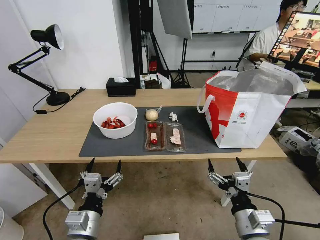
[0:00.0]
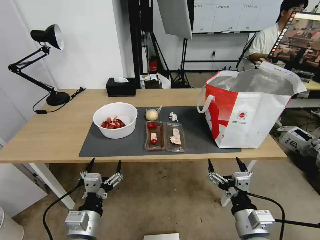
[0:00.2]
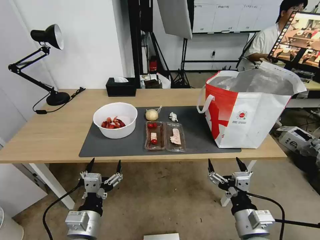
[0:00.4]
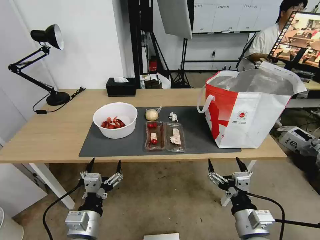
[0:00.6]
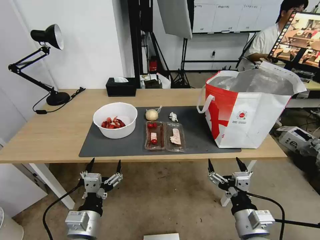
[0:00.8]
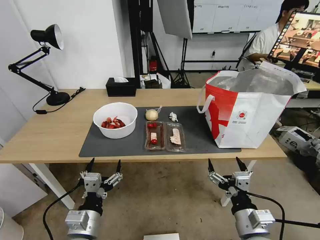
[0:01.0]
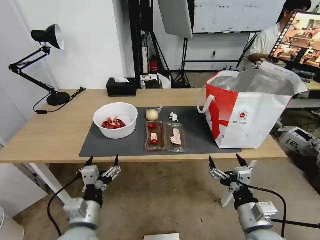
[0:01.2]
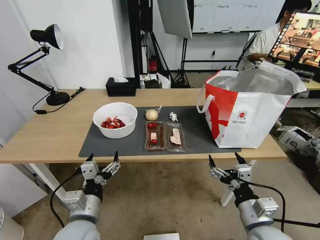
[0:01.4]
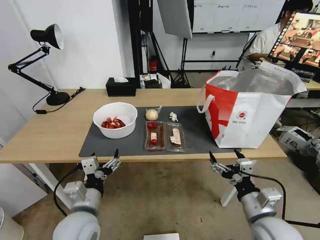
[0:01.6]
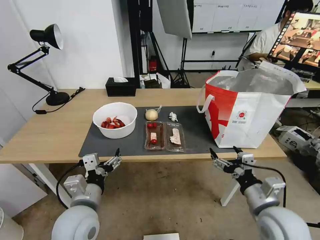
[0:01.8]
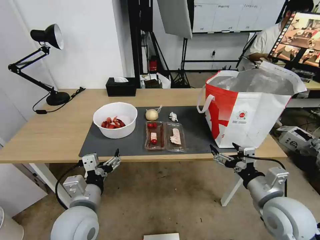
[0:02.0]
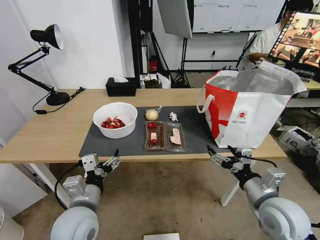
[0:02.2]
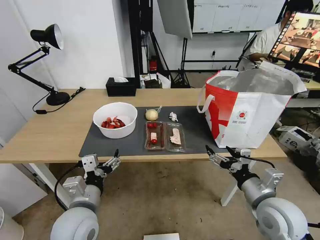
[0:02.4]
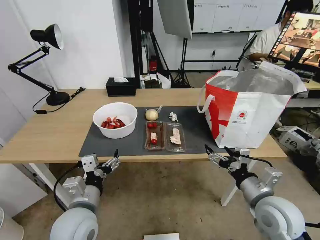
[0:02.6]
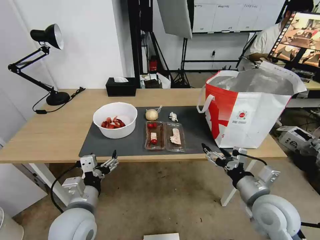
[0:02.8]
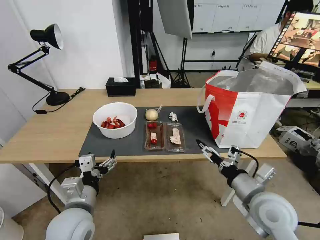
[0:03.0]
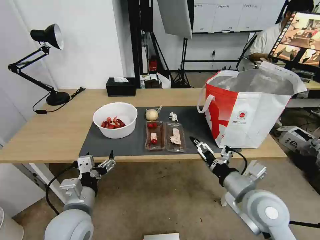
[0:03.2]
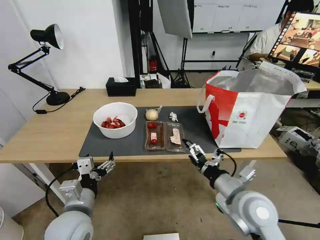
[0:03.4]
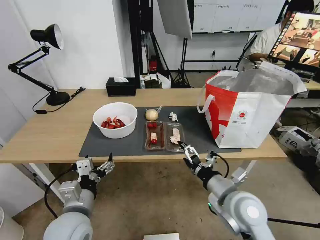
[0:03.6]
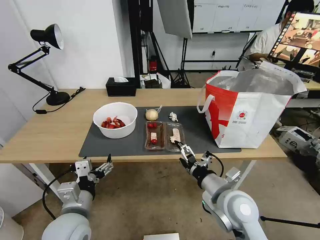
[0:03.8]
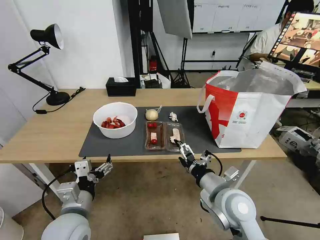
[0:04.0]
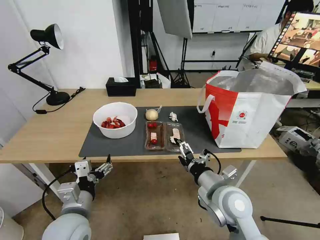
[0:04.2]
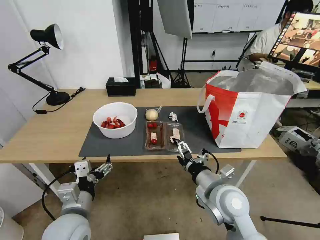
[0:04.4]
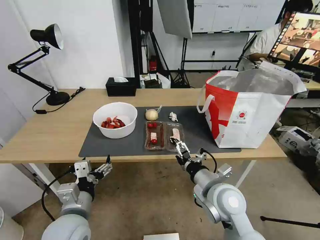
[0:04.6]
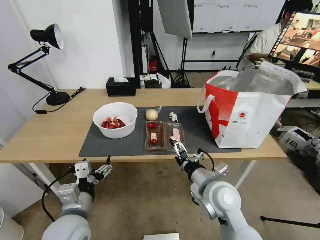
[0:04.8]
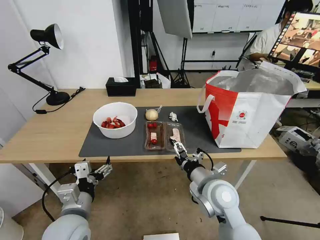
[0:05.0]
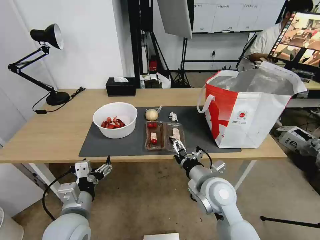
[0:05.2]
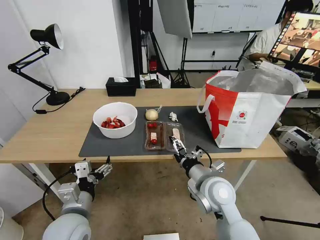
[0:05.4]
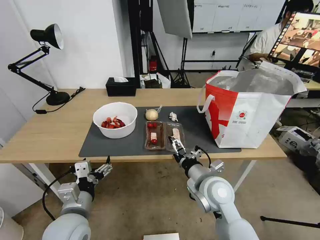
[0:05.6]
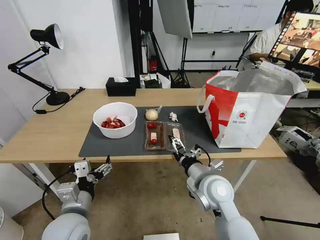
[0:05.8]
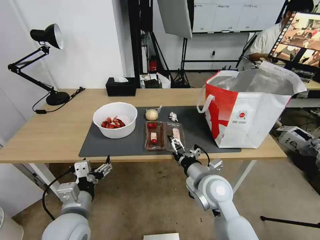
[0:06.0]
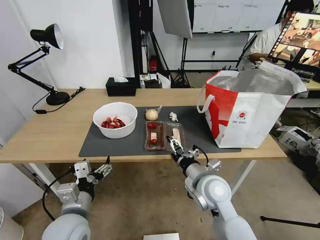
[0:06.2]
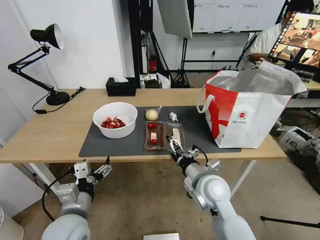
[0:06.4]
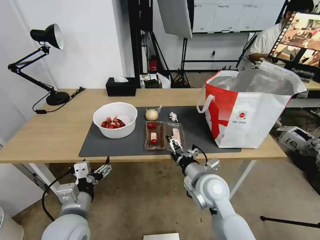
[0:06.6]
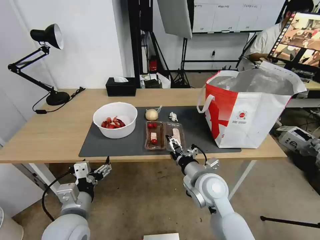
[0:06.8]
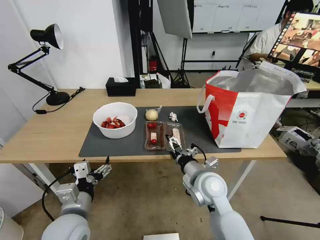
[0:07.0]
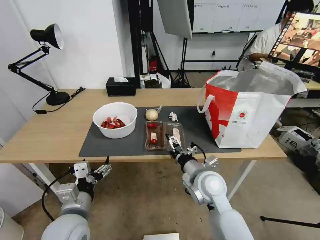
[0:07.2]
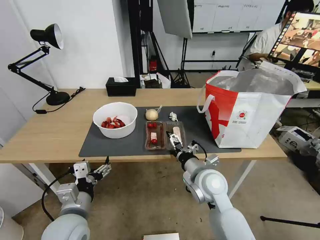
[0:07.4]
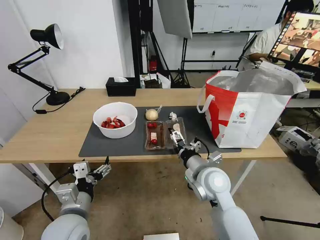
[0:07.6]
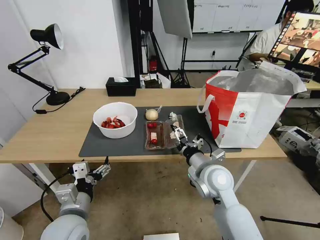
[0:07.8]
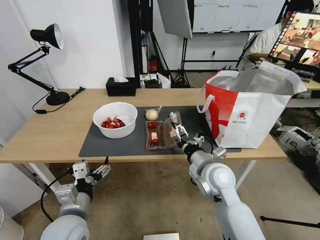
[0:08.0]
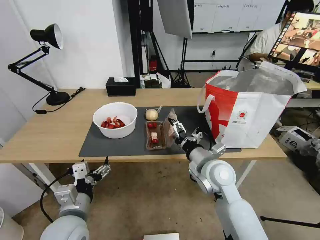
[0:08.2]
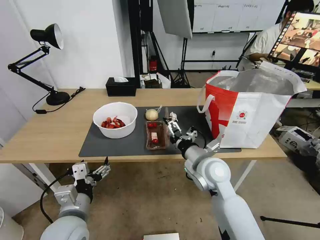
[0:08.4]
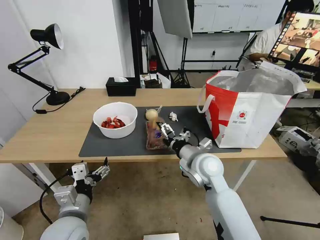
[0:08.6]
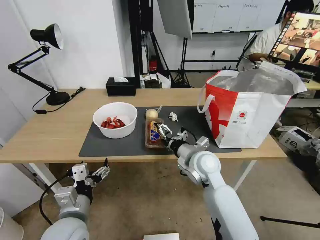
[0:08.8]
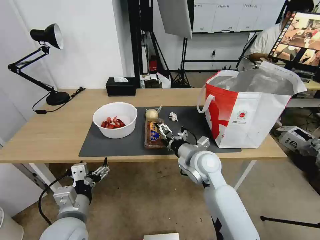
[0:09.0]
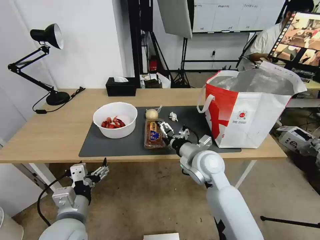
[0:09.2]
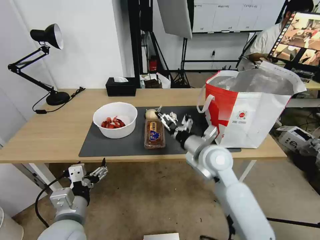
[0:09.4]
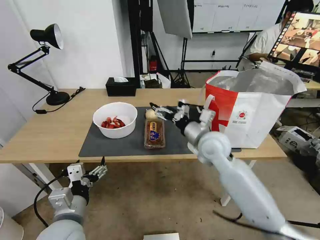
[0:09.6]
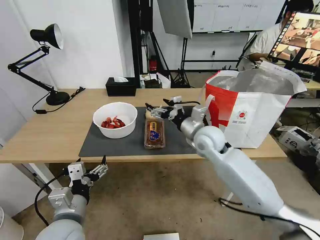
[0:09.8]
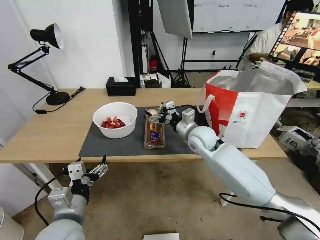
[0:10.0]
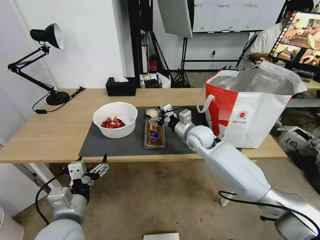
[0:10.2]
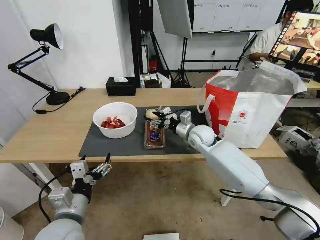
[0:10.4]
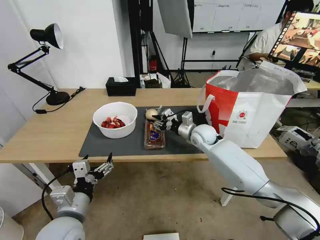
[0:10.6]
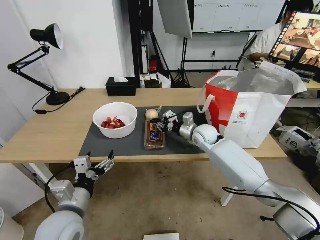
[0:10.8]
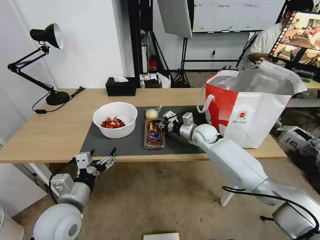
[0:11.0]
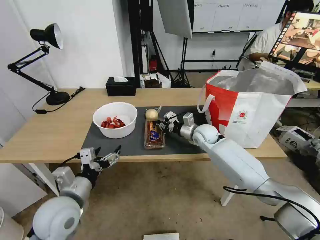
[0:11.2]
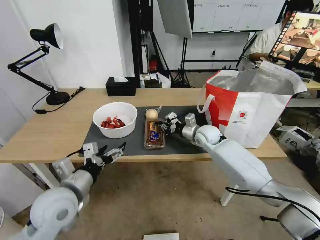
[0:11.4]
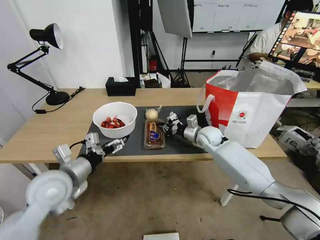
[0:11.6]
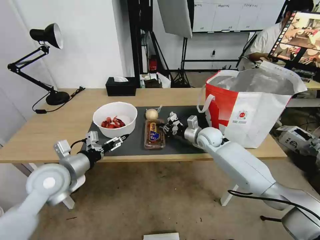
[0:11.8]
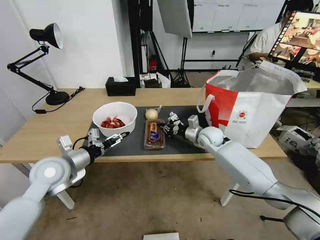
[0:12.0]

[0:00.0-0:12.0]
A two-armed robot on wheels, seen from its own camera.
Task of the whole recording: Pick up the trash from the table and place it into the takeout bag.
0:01.6 to 0:03.0: The right gripper travels forward by about 5 cm.
0:03.0 to 0:04.4: The right gripper shifts some 10 cm to the left.
0:04.4 to 0:06.0: The grippers make only small movements.
0:06.0 to 0:07.6: The grippers stay close to where they were, moving slightly.
0:07.6 to 0:09.0: The right gripper moves roughly 5 cm.
0:09.0 to 0:10.4: The right gripper is displaced forward by approximately 15 cm, and closes.
0:10.4 to 0:12.0: The right gripper shifts by some 5 cm, and closes its fingers. Meanwhile the left gripper goes roughly 15 cm forward and to the left.

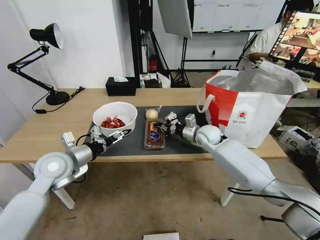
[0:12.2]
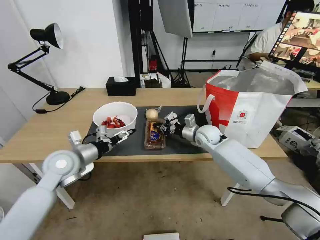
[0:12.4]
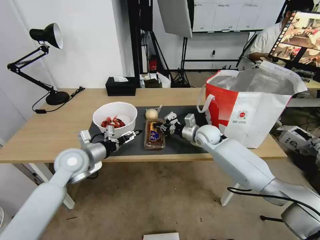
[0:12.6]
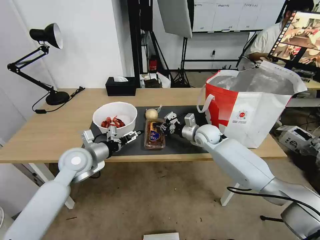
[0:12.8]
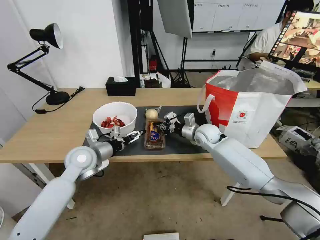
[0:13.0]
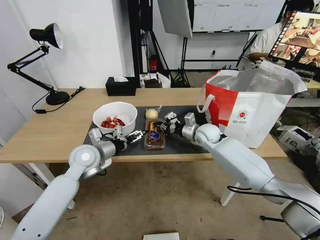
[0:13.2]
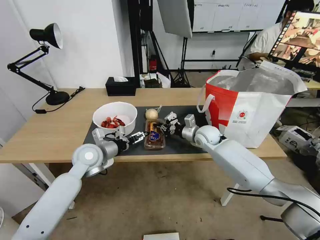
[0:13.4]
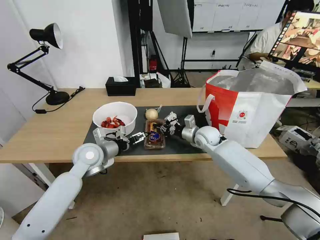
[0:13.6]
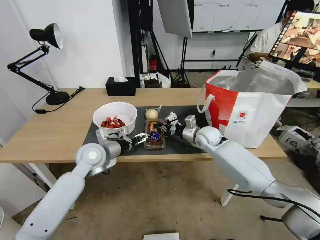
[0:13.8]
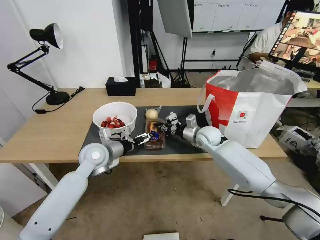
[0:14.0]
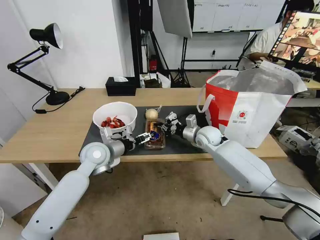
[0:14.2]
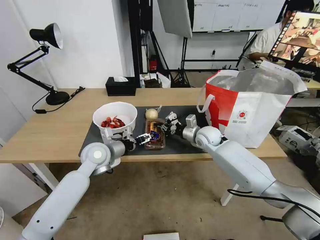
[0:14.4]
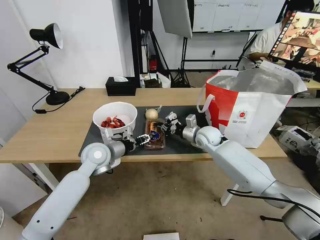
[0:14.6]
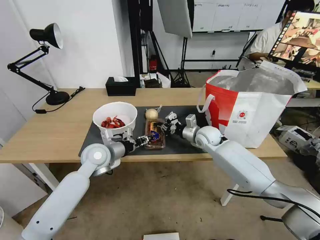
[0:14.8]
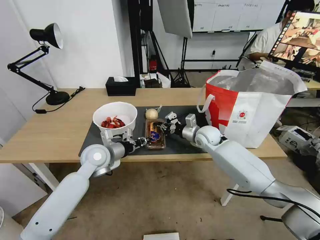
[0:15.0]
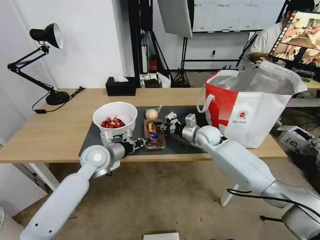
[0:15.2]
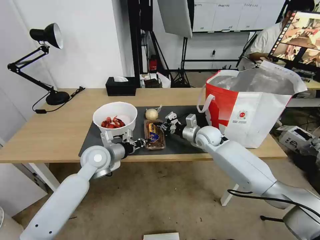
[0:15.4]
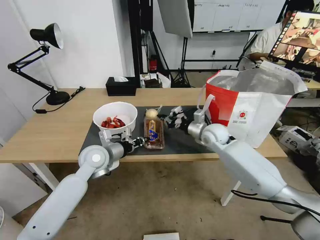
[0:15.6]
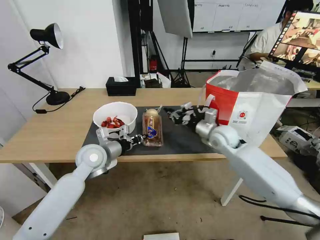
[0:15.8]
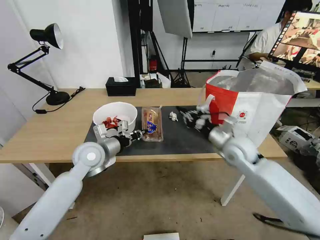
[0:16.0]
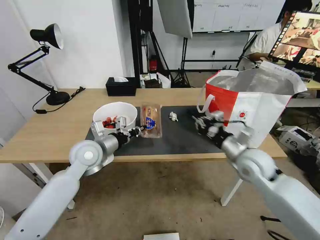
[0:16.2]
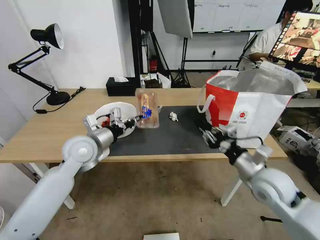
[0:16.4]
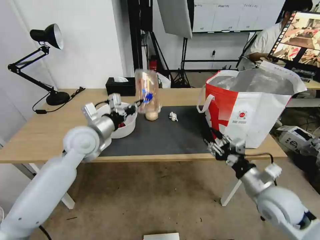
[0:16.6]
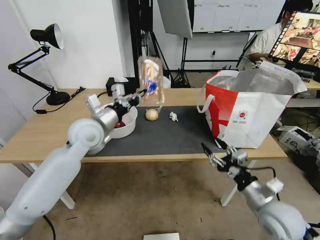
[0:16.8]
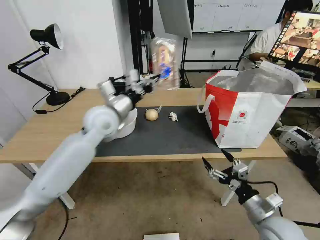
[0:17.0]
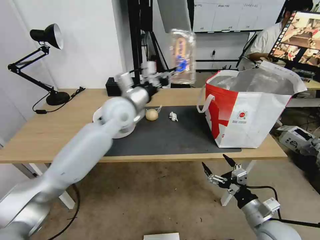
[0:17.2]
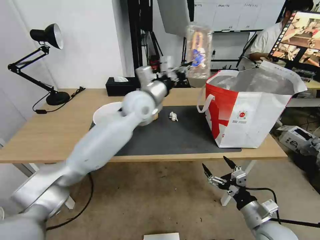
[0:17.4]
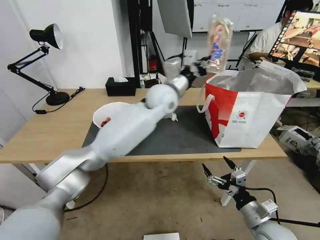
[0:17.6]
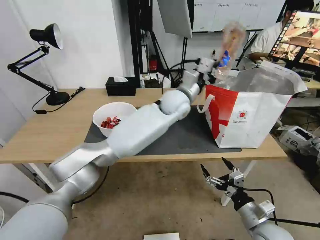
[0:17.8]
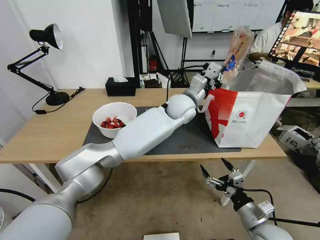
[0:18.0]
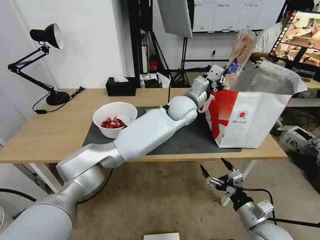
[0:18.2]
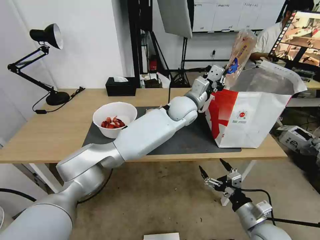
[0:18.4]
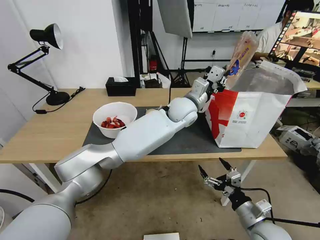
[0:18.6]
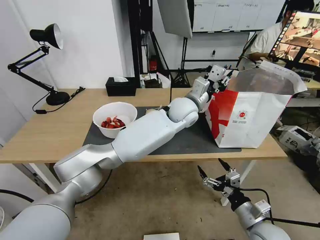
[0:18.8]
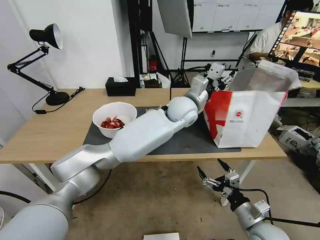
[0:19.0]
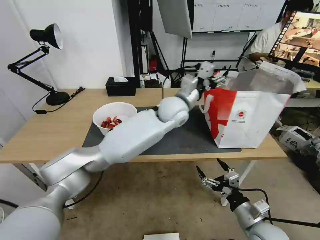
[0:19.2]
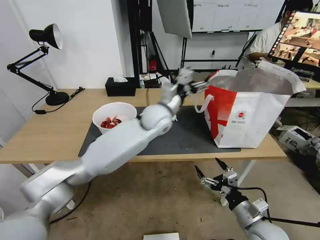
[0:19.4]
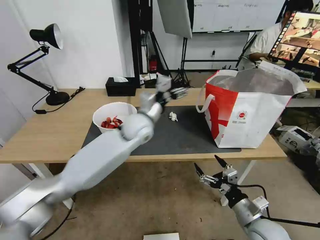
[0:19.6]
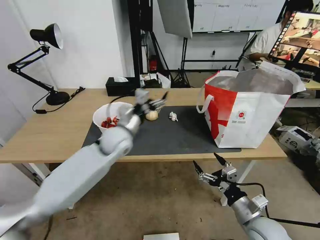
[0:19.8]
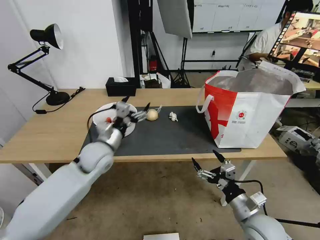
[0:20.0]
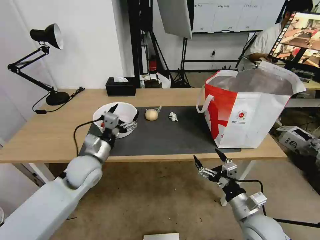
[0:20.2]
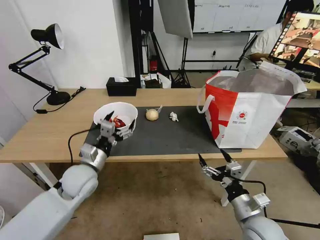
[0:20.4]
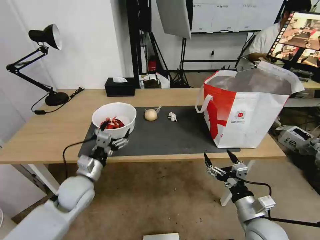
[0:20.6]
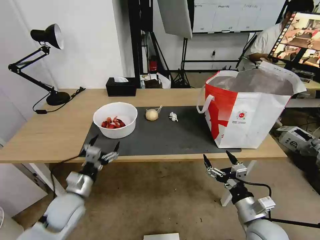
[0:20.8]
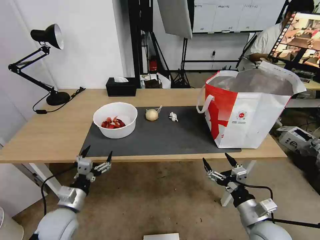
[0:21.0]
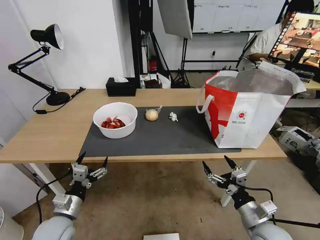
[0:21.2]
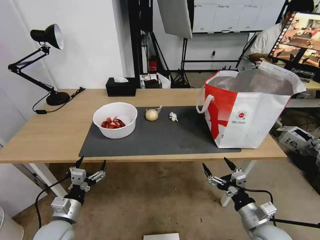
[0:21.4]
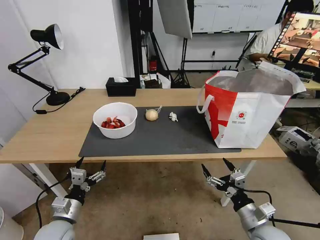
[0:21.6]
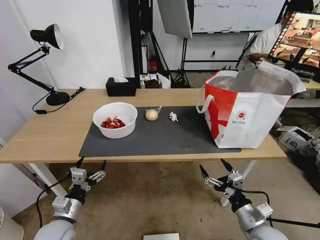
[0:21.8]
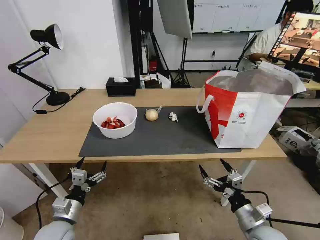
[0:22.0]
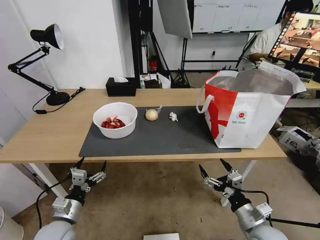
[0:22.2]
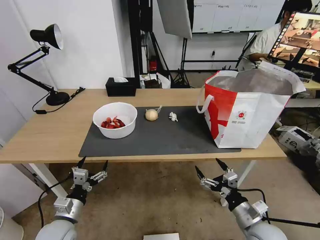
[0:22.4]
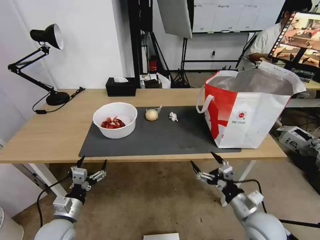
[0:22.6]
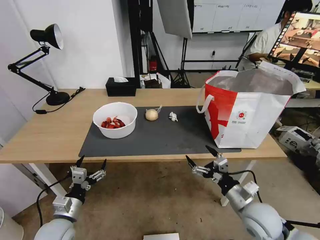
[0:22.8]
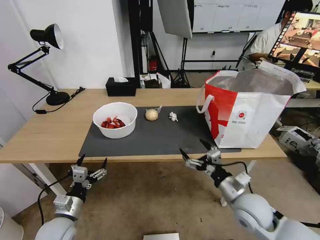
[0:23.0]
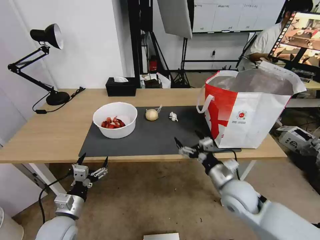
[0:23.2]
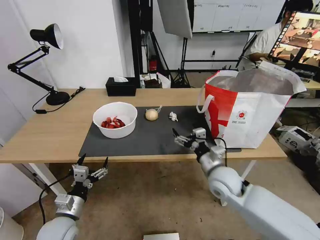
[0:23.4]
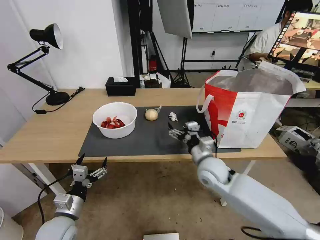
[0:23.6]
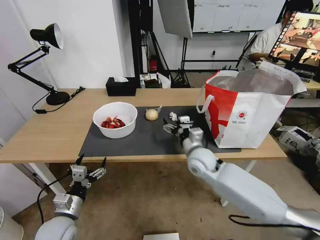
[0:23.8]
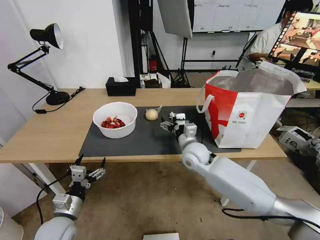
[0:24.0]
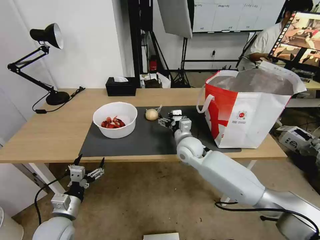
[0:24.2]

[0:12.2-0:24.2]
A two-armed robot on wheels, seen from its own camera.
Task of the whole recording: Pick up the trash from the table and place it into the takeout bag.
0:12.2 to 0:13.8: The left gripper shifts approximately 10 cm to the right and forward.
0:13.8 to 0:15.2: The left gripper closes.
0:15.2 to 0:16.6: The left gripper heads upward, covering roughly 10 cm. Meanwhile the right gripper goes roughly 30 cm backward and to the right, and opens up.
0:16.6 to 0:18.2: The right gripper shifts about 10 cm downward and backward, and opens. Meanwhile the left gripper travels to the right and forward by approximately 35 cm.
0:18.2 to 0:19.8: The left gripper shifts roughly 25 cm to the left and backward, and opens up.
0:19.8 to 0:21.2: The left gripper travels backward, downward and to the left by approximately 30 cm.
0:21.2 to 0:22.6: The grippers stay close to where they were, moving slightly.
0:22.6 to 0:24.2: The right gripper goes some 35 cm forward and to the left.
